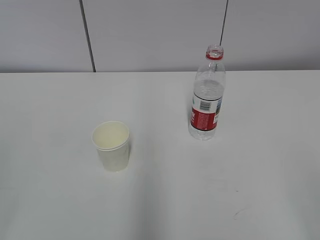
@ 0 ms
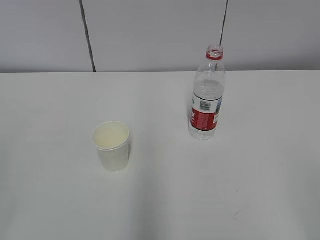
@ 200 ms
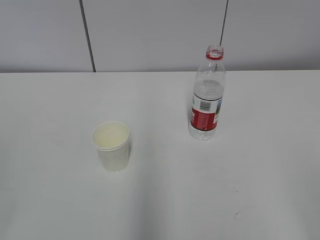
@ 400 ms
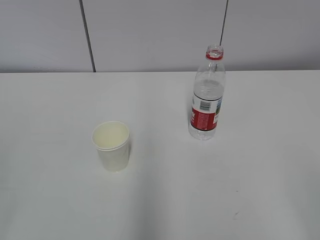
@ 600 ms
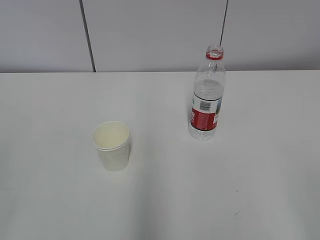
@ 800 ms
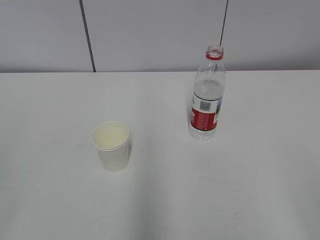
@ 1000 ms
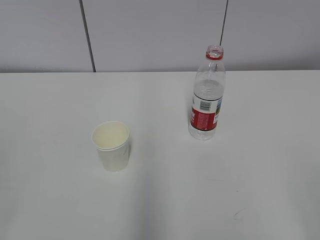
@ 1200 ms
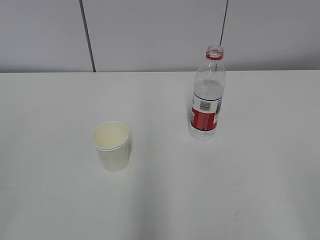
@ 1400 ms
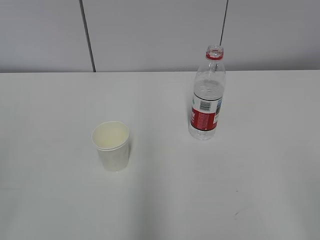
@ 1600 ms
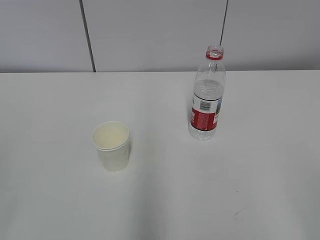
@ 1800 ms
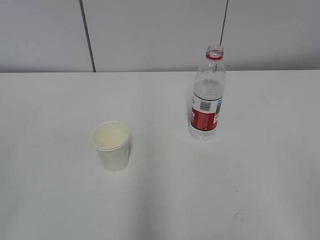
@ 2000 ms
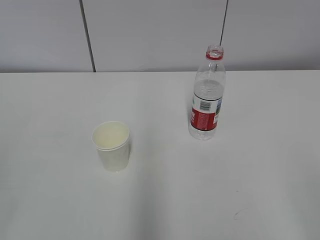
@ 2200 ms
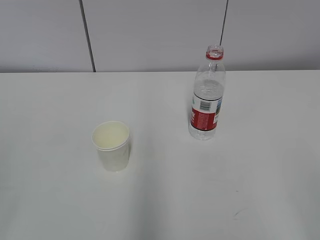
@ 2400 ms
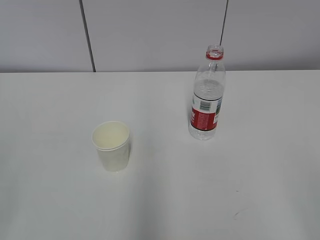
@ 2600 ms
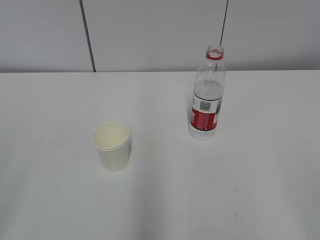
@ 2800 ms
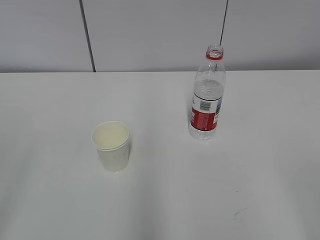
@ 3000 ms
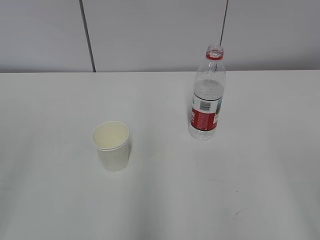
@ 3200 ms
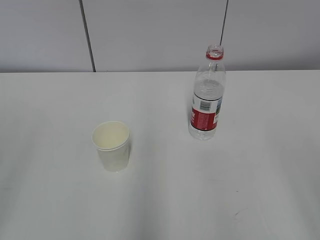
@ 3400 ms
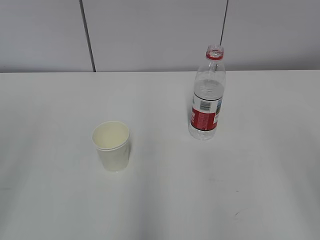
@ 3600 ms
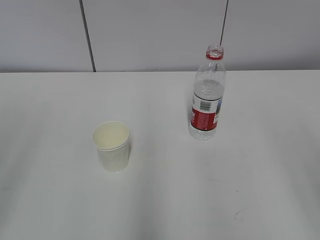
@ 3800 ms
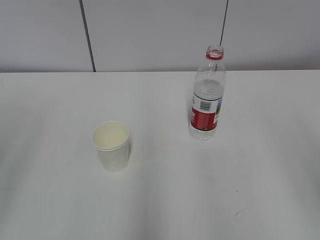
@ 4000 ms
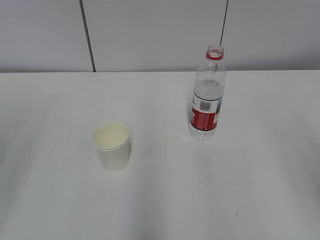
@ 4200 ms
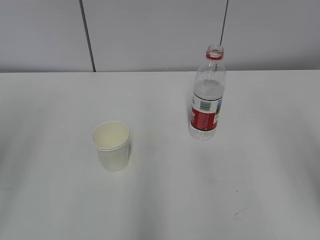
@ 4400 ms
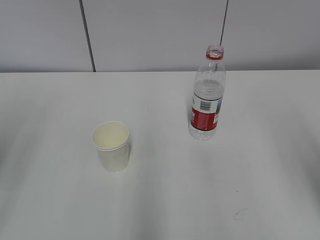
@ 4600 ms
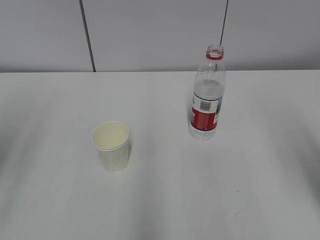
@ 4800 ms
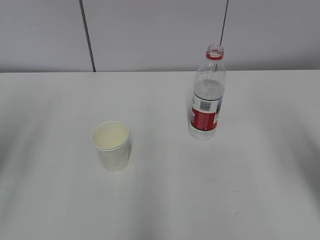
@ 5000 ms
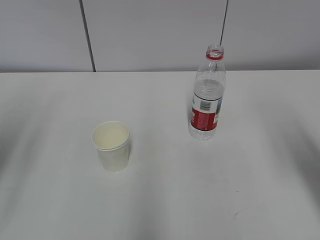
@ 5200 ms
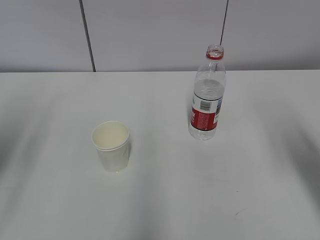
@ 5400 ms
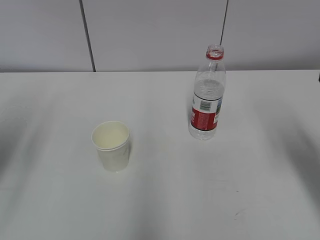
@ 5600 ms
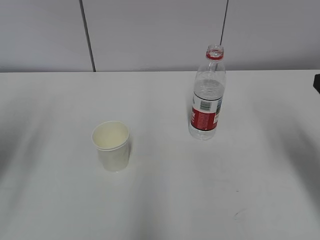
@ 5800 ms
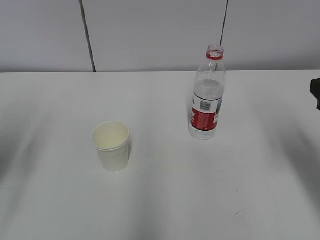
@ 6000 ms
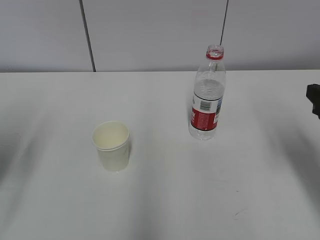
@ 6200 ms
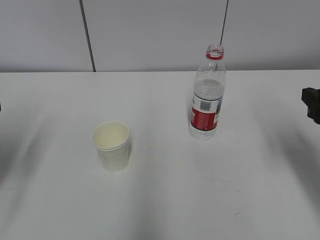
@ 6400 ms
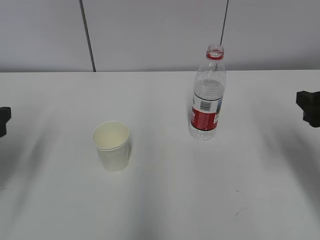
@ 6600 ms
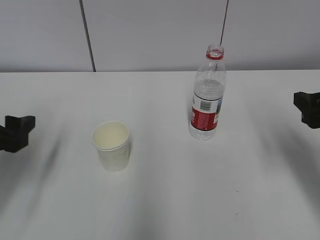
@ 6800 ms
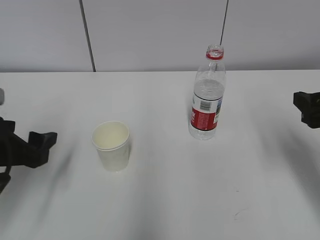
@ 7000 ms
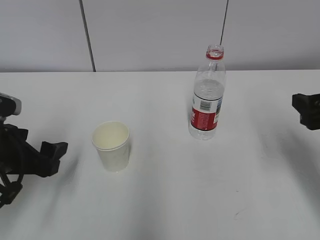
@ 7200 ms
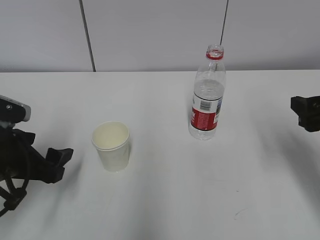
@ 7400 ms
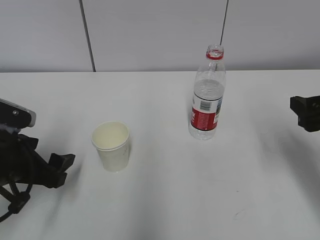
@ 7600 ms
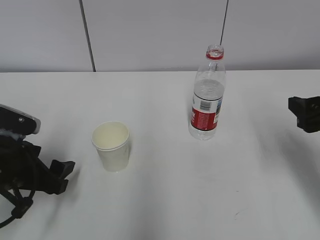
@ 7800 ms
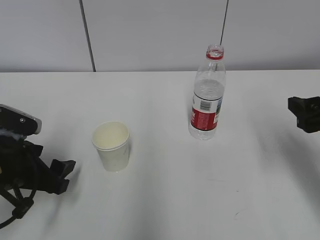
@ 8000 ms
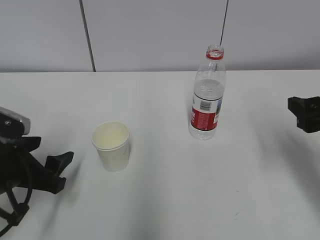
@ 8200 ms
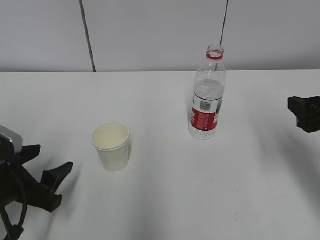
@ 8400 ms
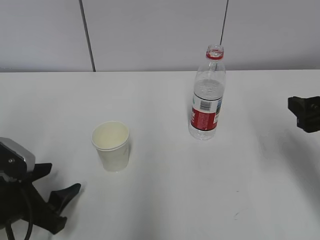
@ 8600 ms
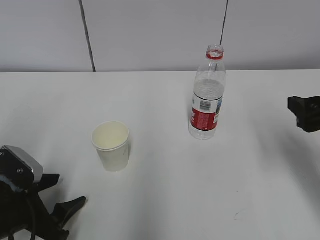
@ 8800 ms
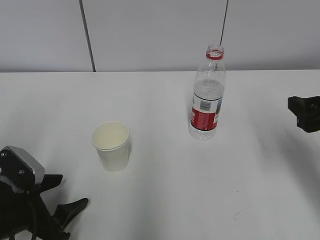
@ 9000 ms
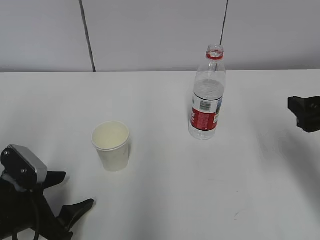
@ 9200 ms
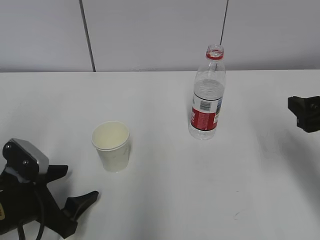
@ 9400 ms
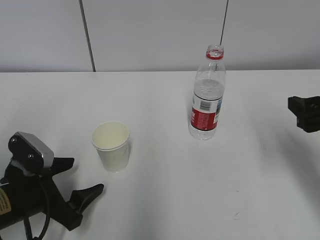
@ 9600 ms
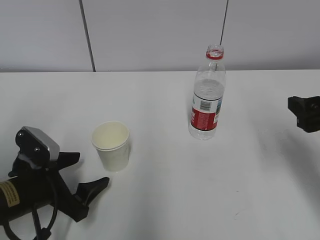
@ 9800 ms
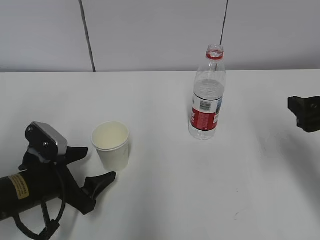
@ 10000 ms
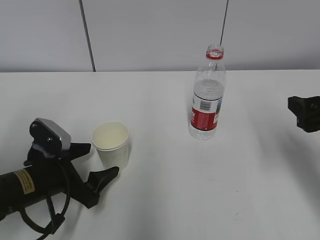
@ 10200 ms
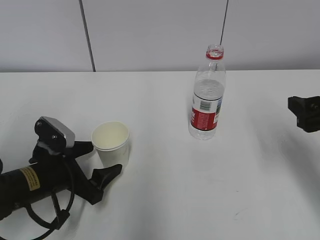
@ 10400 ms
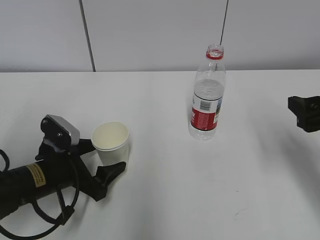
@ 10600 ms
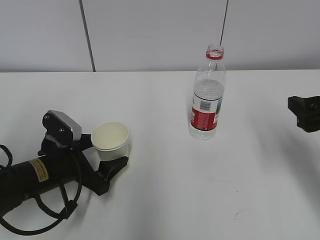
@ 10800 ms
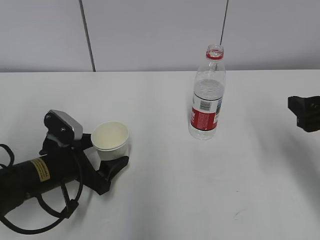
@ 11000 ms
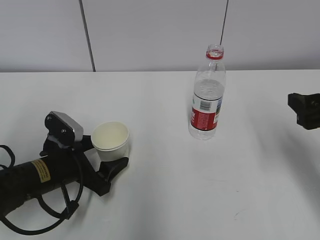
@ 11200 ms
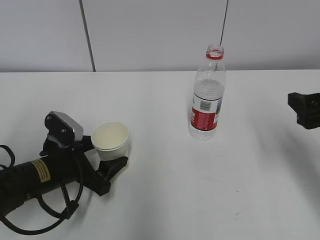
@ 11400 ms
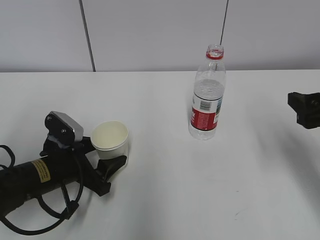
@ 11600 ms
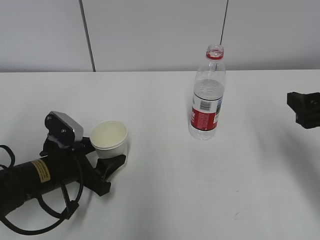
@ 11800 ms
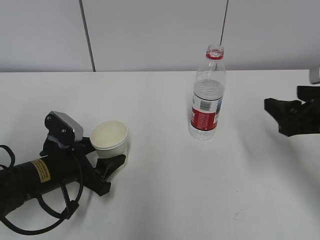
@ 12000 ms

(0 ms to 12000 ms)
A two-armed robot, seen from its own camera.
Step, 0 ms - 11800 ms: Grab the paper cup with the left hand.
4400 ms - 6000 ms: The right gripper shifts approximately 15 cm forward and downward.
6000 ms - 7600 ms: The left gripper moves downward and to the right, approximately 15 cm.
7600 ms - 9000 ms: The left gripper heads downward, covering about 5 cm.
9000 ms - 10400 ms: The left gripper is displaced forward by roughly 5 cm.
10400 ms - 12000 ms: The left gripper closes up.

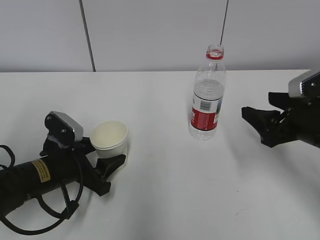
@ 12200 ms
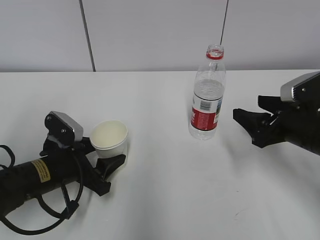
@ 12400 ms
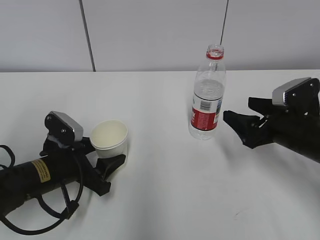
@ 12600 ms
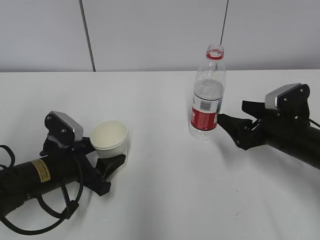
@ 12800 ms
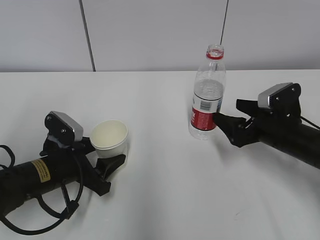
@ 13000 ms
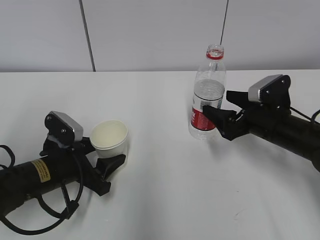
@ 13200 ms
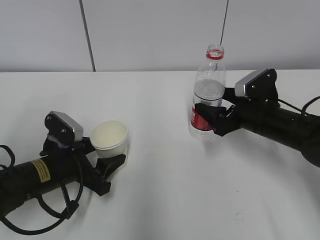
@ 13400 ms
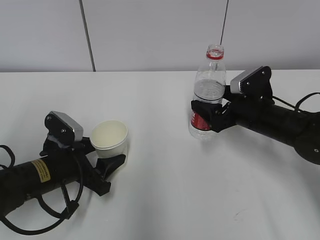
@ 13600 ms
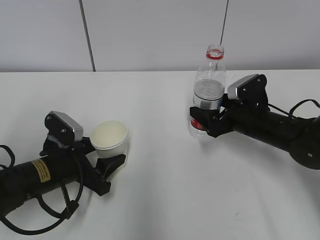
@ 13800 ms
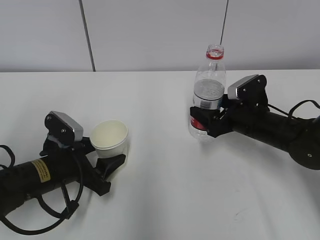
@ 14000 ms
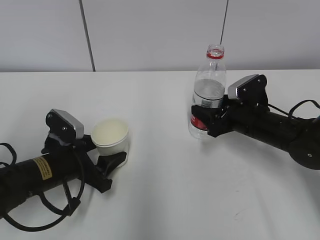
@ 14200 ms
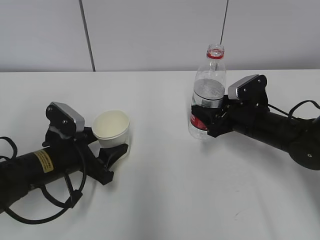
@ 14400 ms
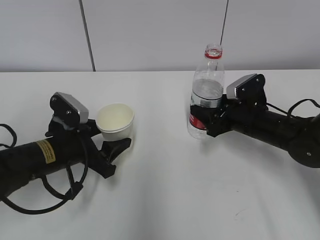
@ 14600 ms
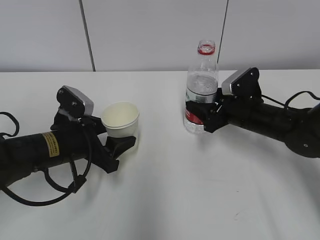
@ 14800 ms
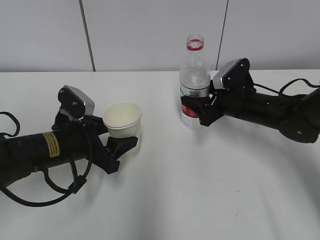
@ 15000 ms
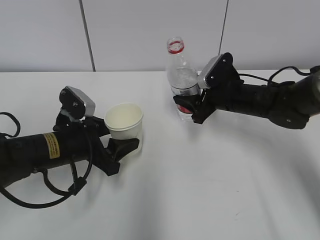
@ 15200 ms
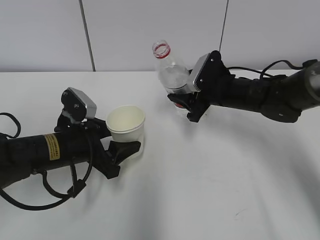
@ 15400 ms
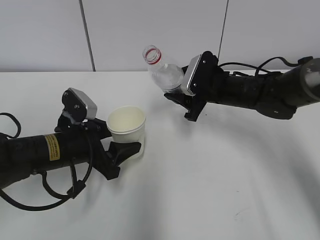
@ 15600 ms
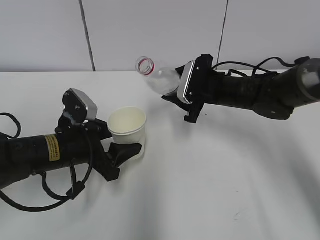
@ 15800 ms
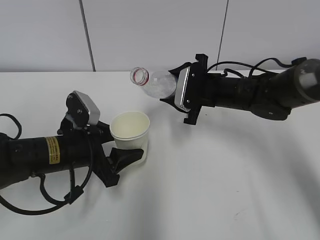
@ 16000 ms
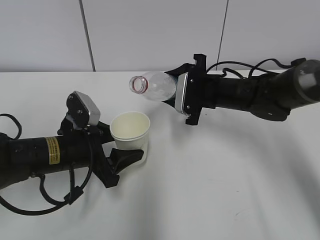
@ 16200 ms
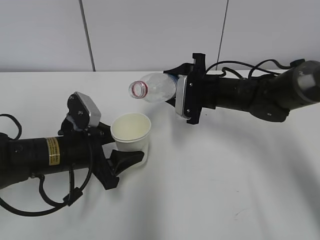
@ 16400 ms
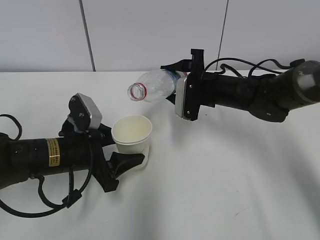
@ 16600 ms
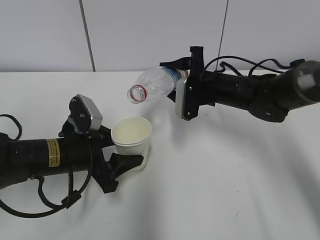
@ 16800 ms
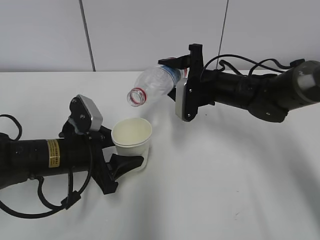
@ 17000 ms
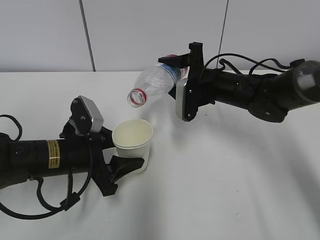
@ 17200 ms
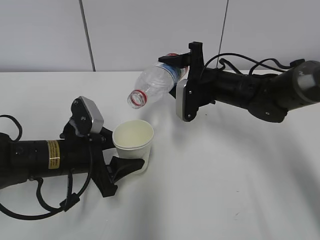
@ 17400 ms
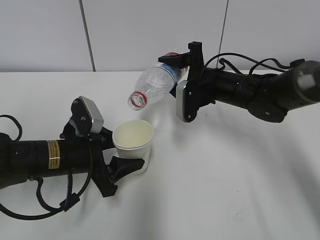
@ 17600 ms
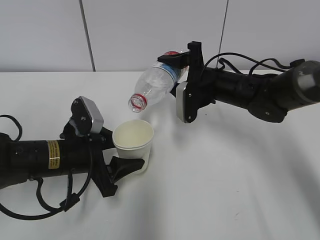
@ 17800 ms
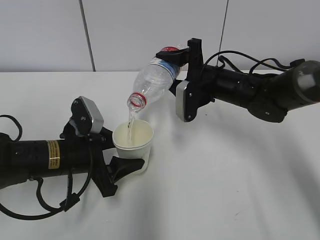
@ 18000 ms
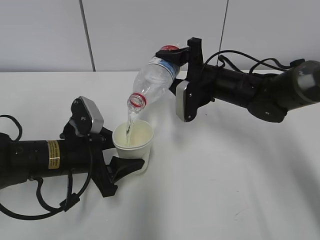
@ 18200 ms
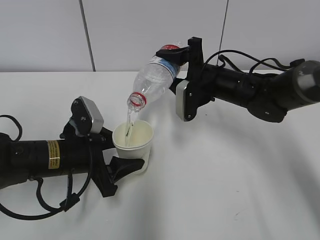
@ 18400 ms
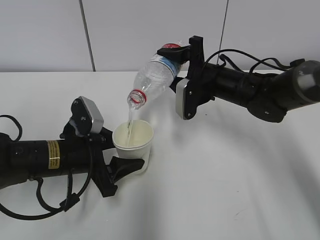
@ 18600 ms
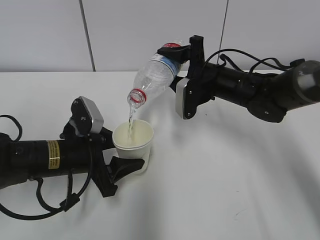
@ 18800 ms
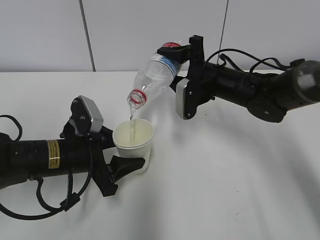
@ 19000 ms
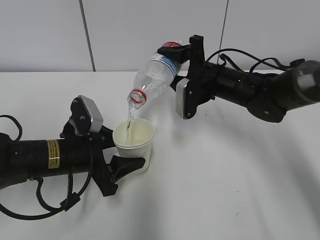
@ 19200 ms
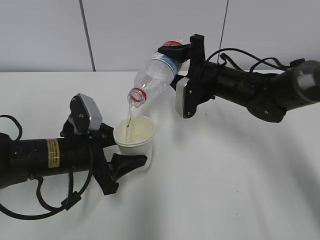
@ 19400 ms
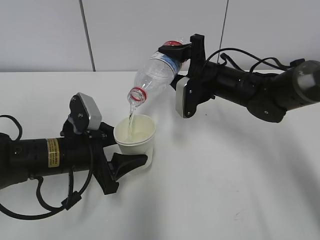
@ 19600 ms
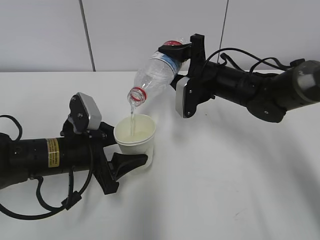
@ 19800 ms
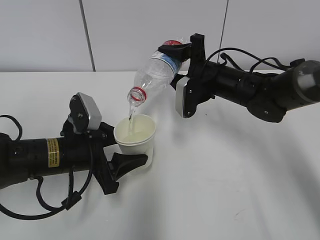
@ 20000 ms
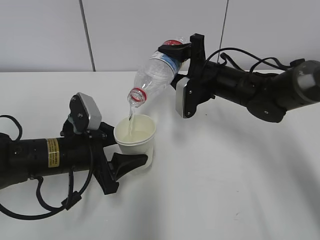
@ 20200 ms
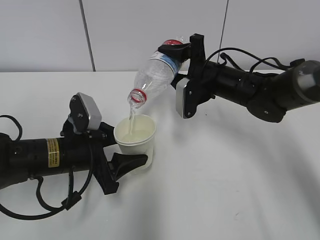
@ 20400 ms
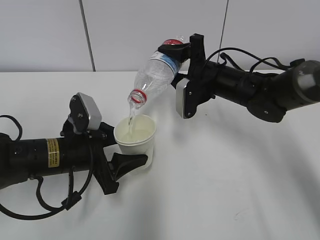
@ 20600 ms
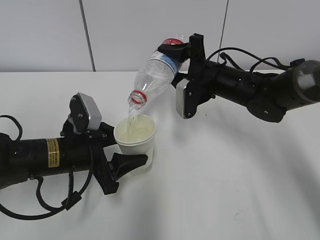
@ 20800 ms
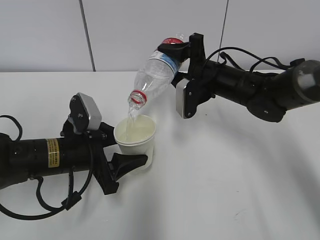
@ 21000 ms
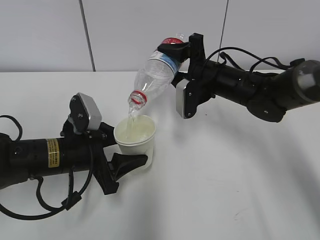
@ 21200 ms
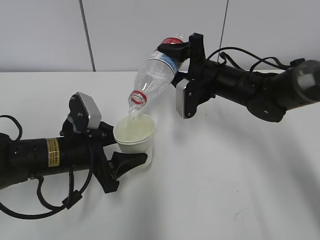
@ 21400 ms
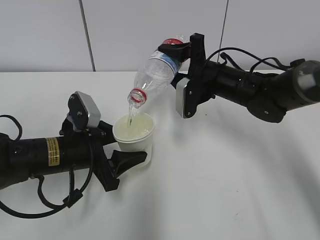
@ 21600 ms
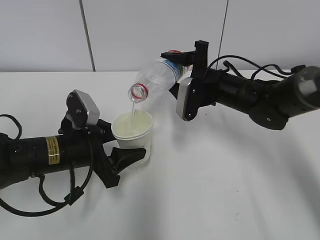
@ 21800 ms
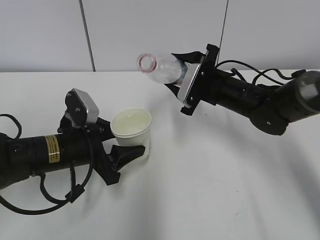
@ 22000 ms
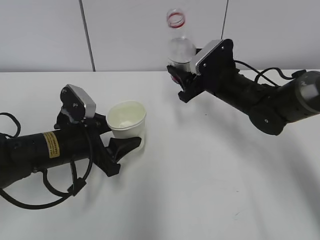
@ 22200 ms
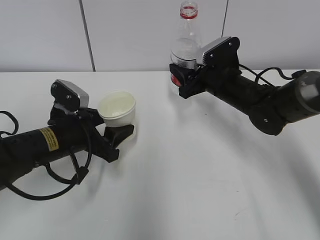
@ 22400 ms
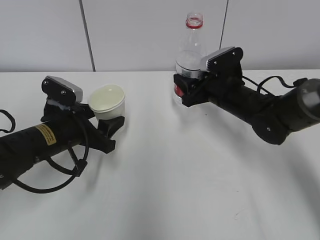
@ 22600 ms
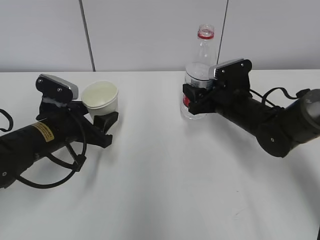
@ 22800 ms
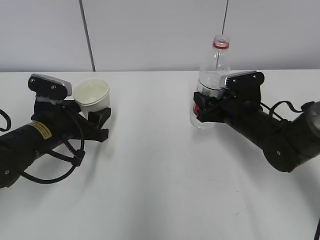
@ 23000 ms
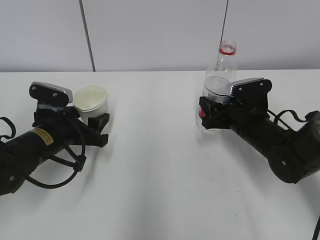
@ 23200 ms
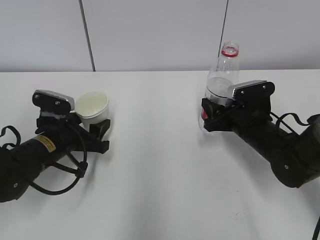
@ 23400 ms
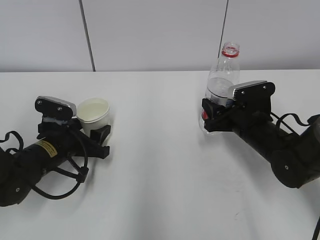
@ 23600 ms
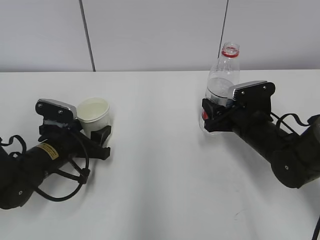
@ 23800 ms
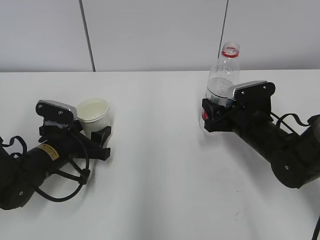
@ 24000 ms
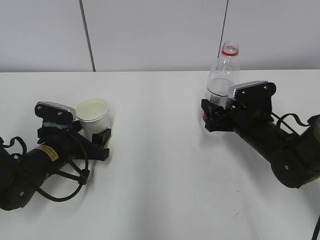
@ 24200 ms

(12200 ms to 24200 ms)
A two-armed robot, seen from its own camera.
Step, 12200 ms - 14800 ms: Lift the paper cup with the left hand.
Step, 15000 ms - 18200 ms: Fill water with the left hand.
Step, 15000 ms - 18200 ms: Pour water with the right hand.
Step, 18400 ms - 18600 ms: Collect water with the right hand.
Step, 18800 ms - 19800 ms: Place the paper cup with the left hand.
12200 ms - 13800 ms: The right gripper goes roughly 15 cm forward and downward, and opens.
13800 ms - 15200 ms: The right gripper ends up some 5 cm from where it was, and closes its fingers.
18200 ms - 19800 ms: Both grippers stay about where they are.
19800 ms - 21200 ms: The two grippers keep their place.
22600 ms - 24200 ms: The left gripper goes about 5 cm downward; the right gripper goes about 5 cm backward, and opens up.
